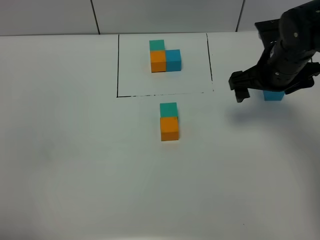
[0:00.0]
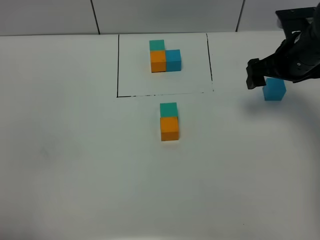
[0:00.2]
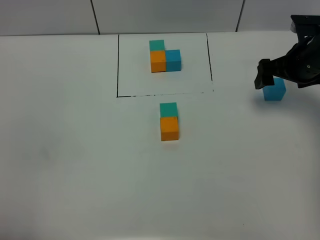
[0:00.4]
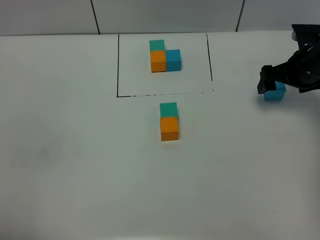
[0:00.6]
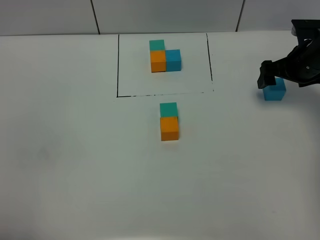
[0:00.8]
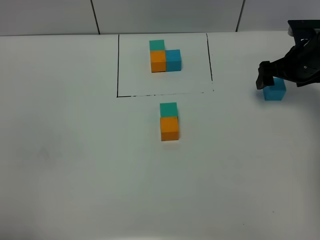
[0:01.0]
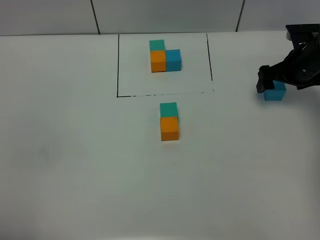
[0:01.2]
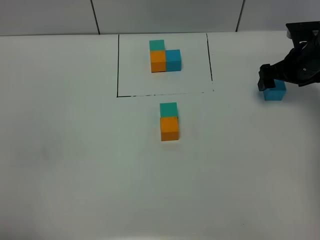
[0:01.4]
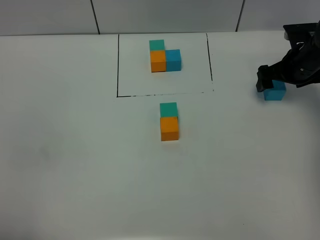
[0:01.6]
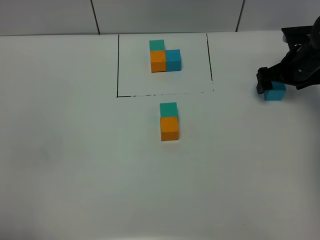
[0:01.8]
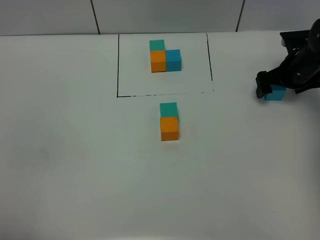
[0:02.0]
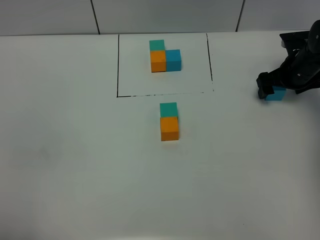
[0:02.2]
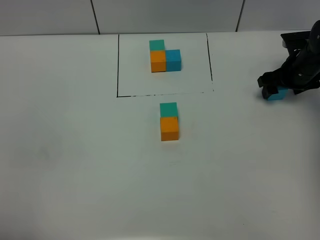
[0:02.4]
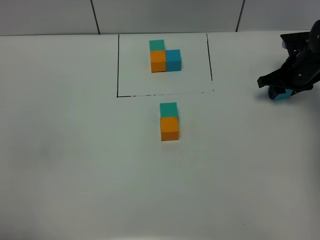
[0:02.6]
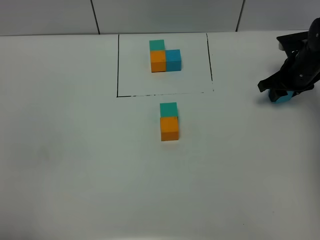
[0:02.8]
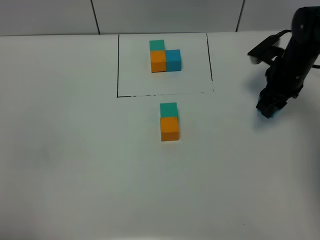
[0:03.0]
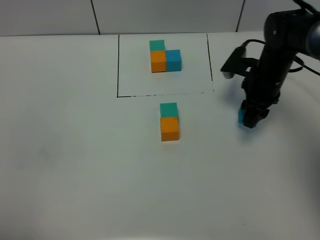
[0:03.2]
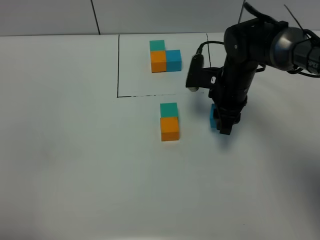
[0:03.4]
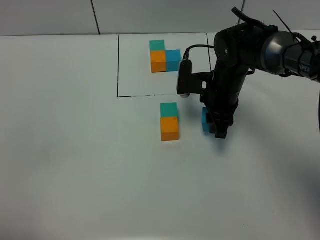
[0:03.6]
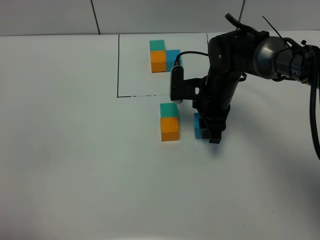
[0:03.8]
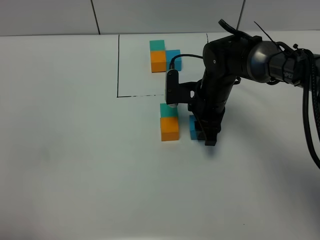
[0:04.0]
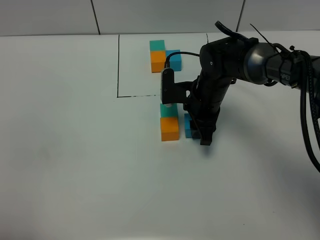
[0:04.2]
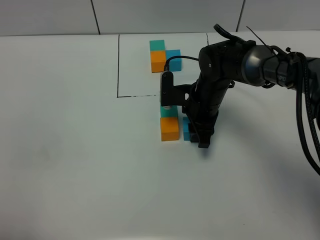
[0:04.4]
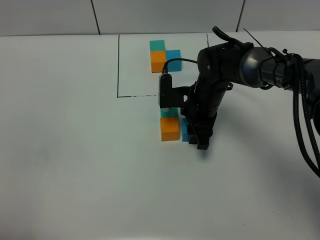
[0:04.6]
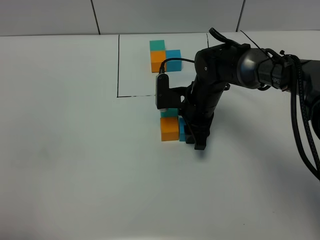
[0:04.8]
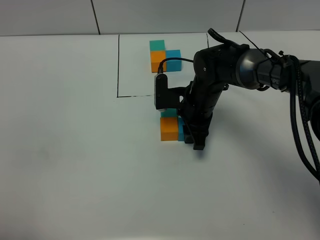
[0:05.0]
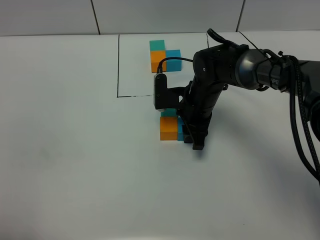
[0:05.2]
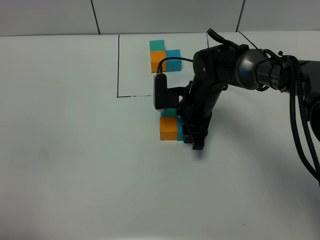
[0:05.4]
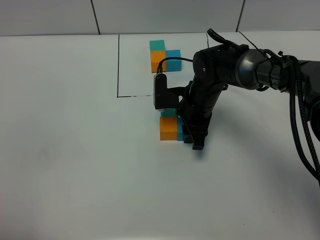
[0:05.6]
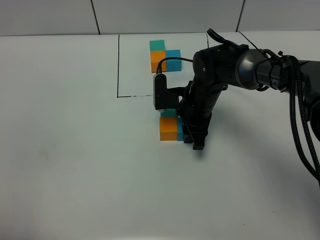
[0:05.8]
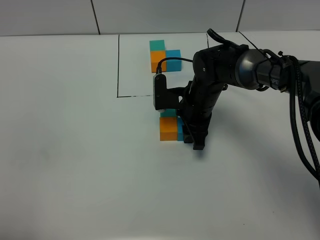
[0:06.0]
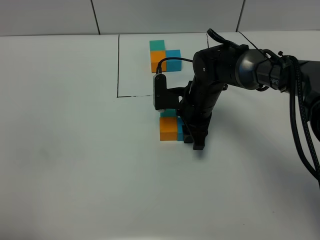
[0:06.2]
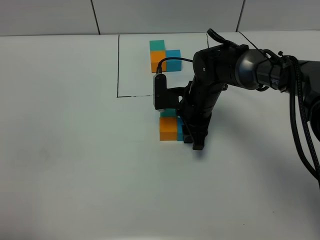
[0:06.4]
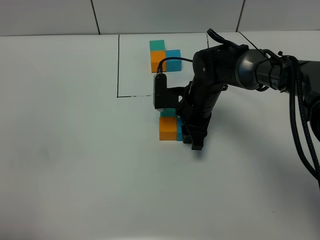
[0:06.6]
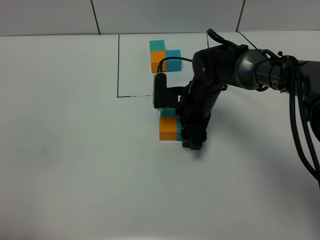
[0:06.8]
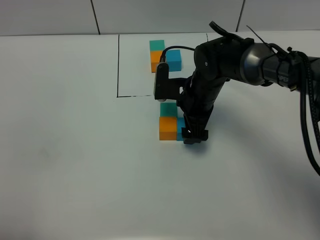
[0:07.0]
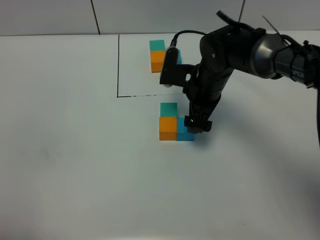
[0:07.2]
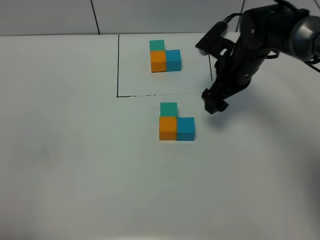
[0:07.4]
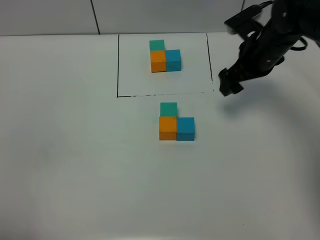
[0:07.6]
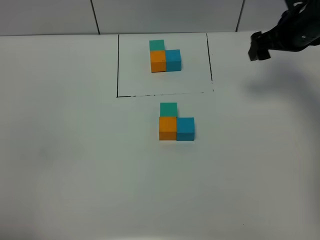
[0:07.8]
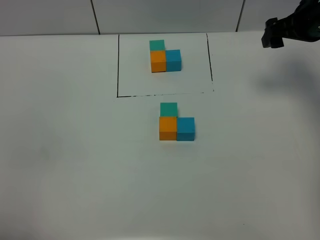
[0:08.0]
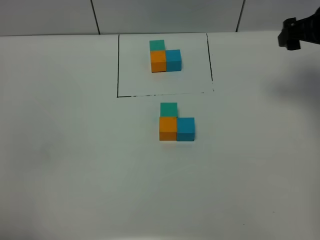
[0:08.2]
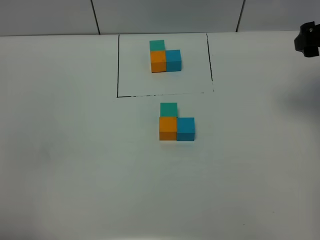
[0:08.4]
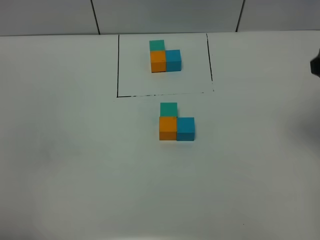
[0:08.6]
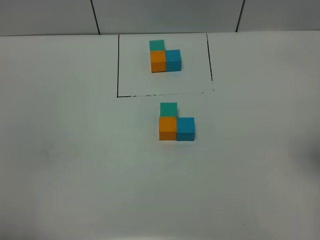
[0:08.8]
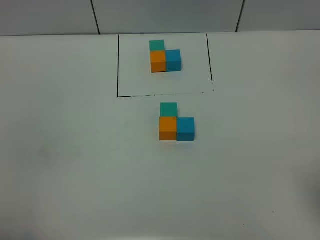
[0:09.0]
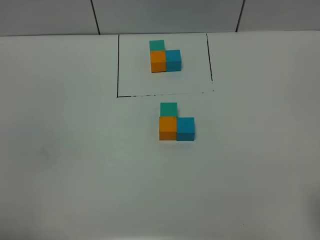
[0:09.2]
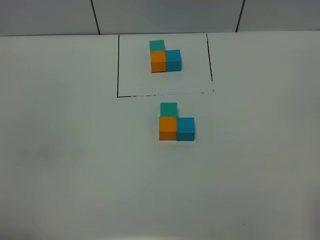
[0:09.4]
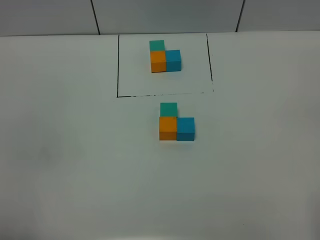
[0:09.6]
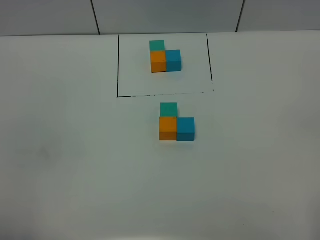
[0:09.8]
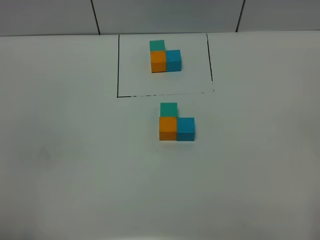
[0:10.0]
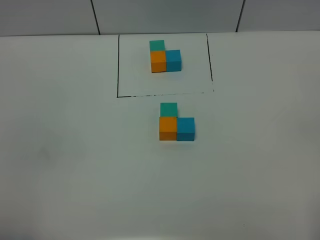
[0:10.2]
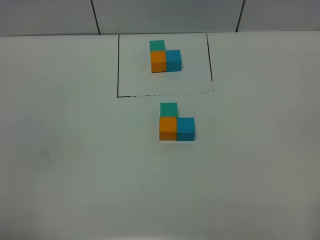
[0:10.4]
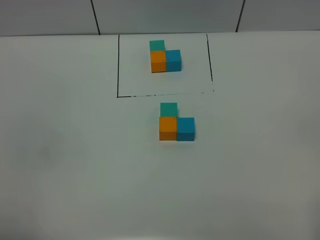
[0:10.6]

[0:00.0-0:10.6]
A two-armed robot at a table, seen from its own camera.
Task of the whole recording: According to the building block template in front, assemble the scattered blocks together.
Step, 0:00.0 to 0:06.8: Put the blue build block on the right of the orange build block.
0:00.0 to 0:01.6: The right gripper travels to the right, downward and forward by about 15 cm.
0:01.6 to 0:03.0: The right gripper goes some 5 cm to the left, and closes.
0:03.0 to 0:04.6: The right gripper shifts approximately 15 cm to the left.
0:04.6 to 0:06.0: The two grippers keep their place.
0:06.0 to 0:07.6: The right gripper shifts approximately 15 cm to the right and upward, and opens up.
0:07.6 to 0:09.0: The right gripper is displaced backward by approximately 30 cm.

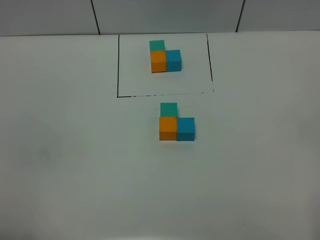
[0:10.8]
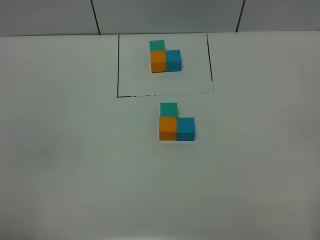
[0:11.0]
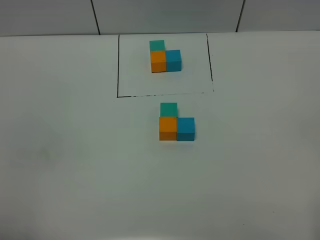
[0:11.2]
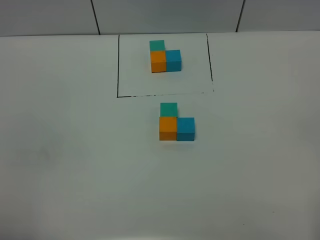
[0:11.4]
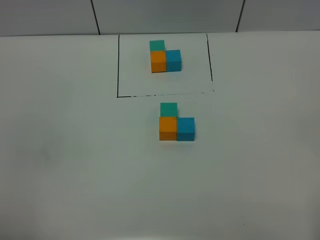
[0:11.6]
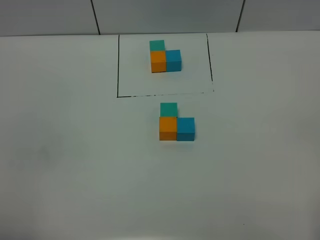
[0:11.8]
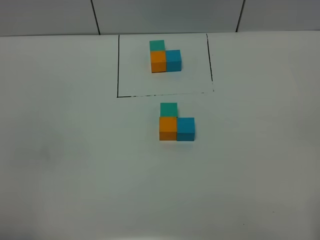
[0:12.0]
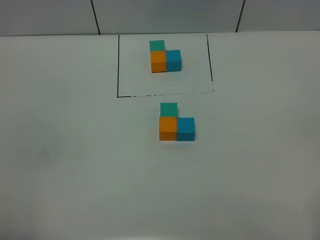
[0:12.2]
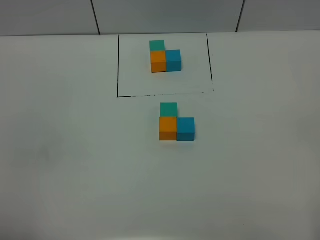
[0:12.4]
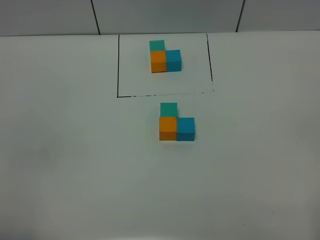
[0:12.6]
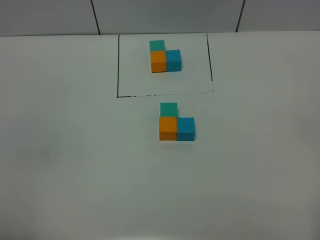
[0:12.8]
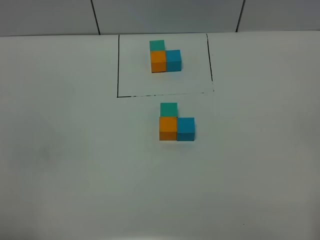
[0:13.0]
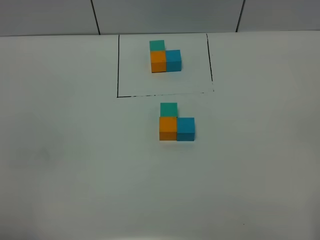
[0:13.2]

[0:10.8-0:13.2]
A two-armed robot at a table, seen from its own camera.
Task of the whole recording: According to the building block template in front, assemble the scattered blocks together.
0:10.8 to 0:13.2: Neither gripper changes place.

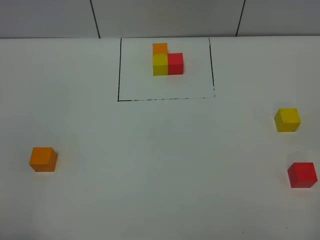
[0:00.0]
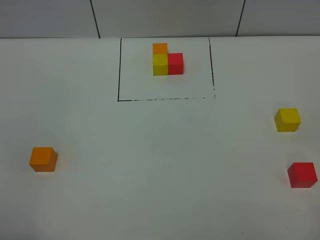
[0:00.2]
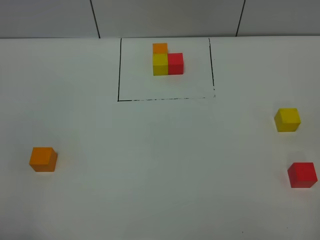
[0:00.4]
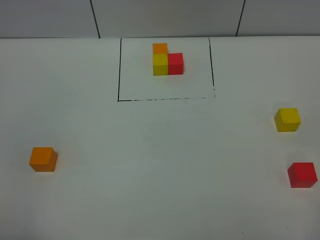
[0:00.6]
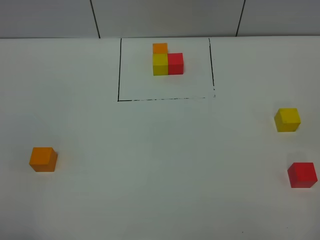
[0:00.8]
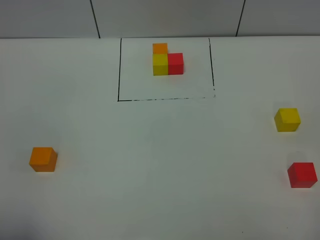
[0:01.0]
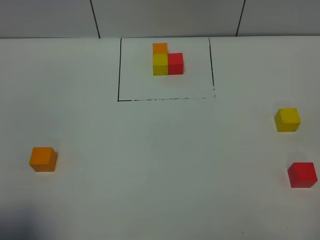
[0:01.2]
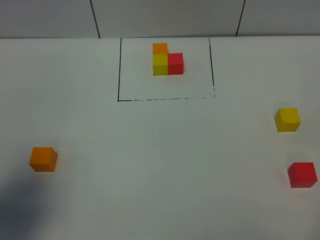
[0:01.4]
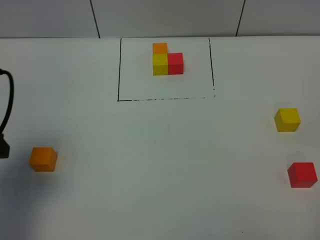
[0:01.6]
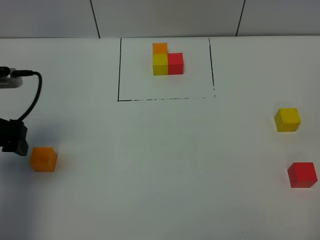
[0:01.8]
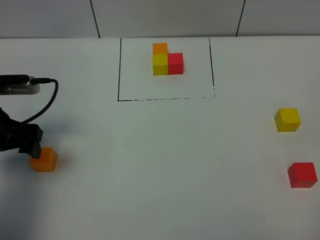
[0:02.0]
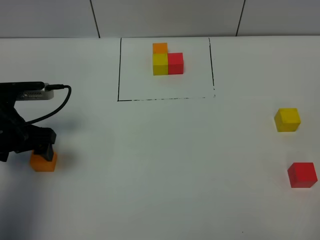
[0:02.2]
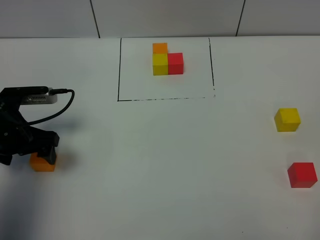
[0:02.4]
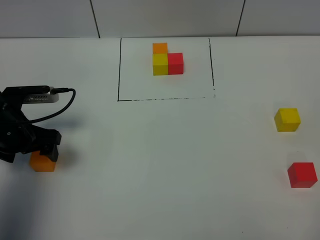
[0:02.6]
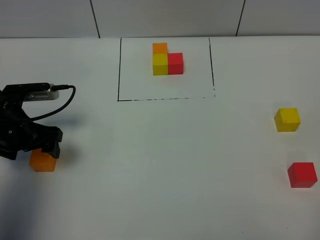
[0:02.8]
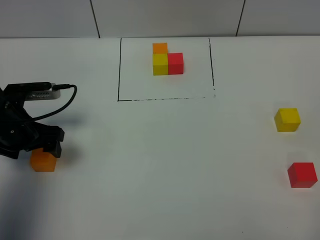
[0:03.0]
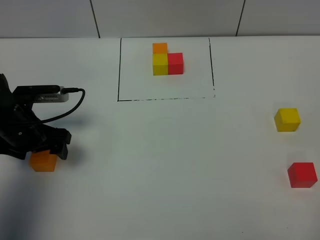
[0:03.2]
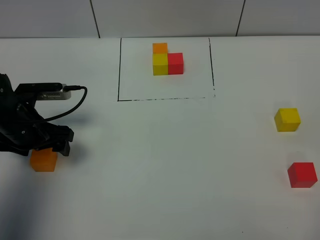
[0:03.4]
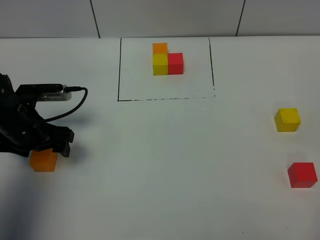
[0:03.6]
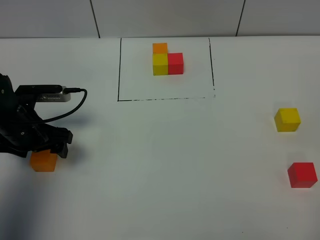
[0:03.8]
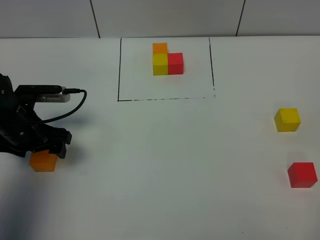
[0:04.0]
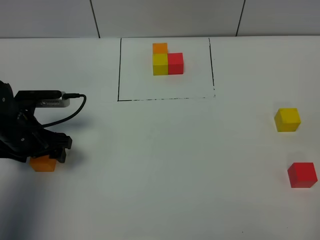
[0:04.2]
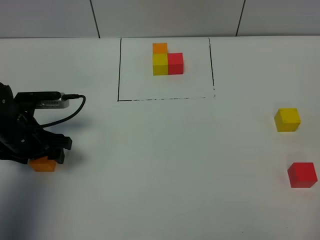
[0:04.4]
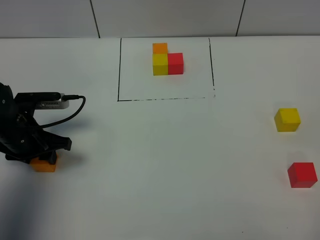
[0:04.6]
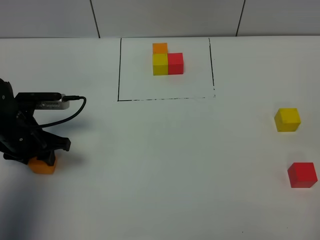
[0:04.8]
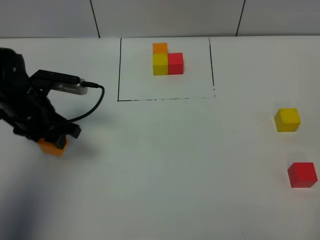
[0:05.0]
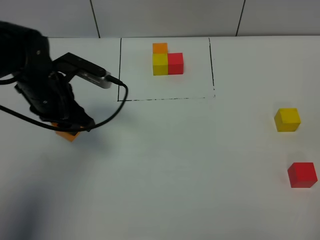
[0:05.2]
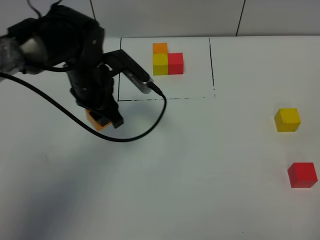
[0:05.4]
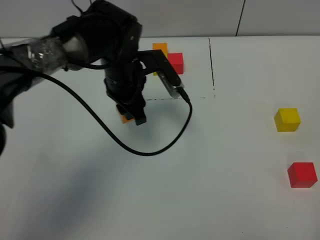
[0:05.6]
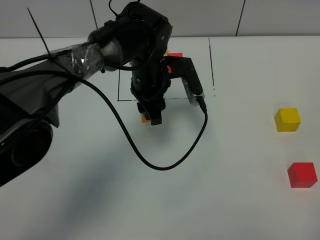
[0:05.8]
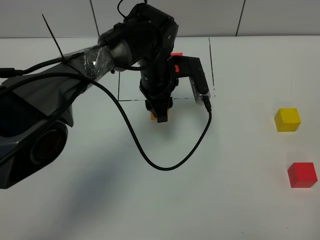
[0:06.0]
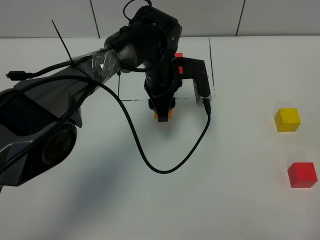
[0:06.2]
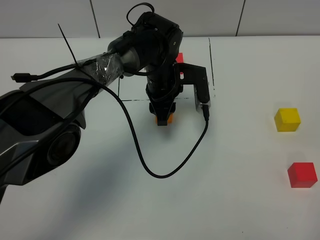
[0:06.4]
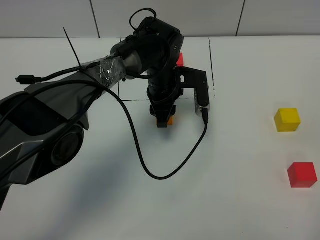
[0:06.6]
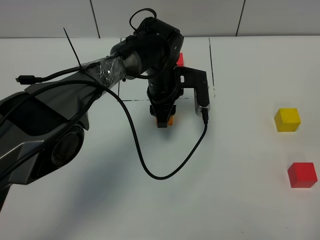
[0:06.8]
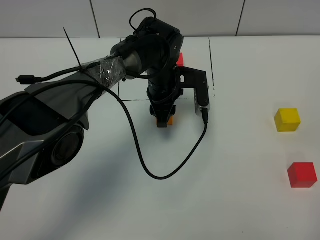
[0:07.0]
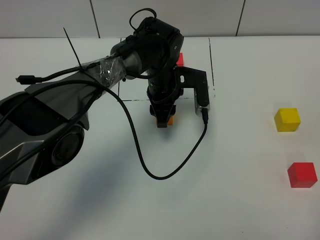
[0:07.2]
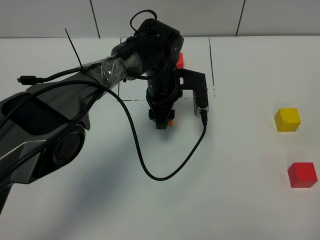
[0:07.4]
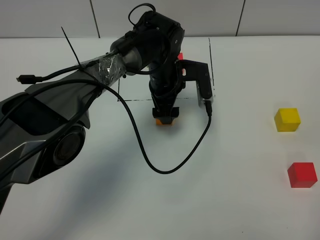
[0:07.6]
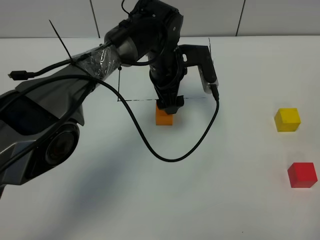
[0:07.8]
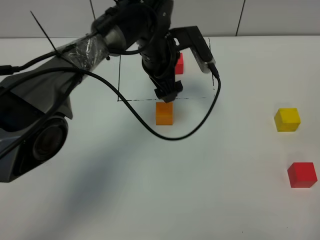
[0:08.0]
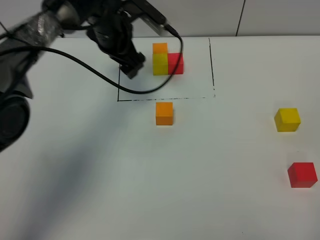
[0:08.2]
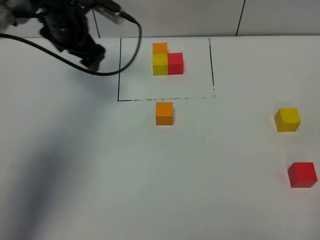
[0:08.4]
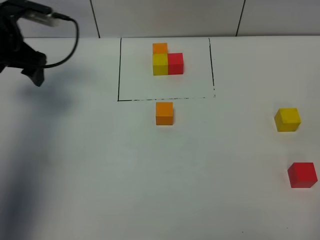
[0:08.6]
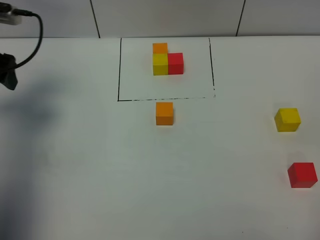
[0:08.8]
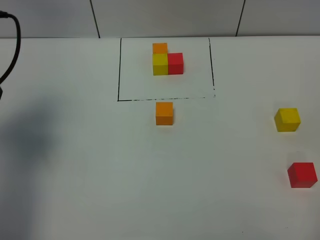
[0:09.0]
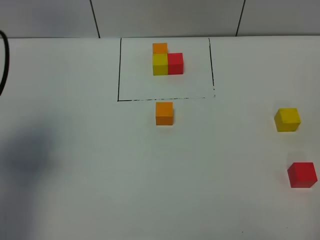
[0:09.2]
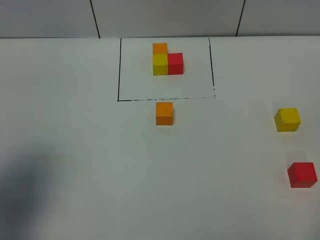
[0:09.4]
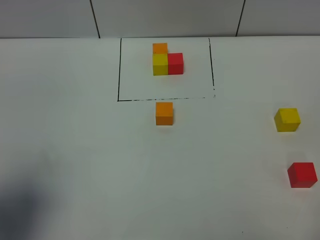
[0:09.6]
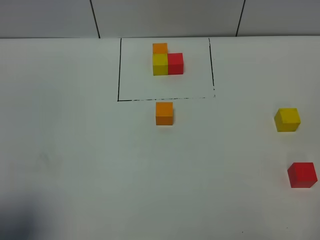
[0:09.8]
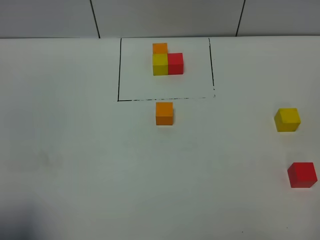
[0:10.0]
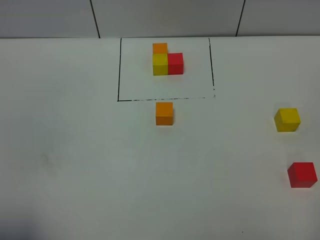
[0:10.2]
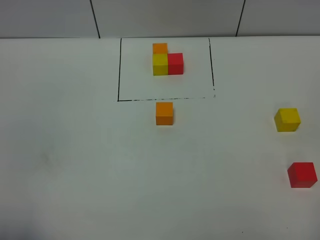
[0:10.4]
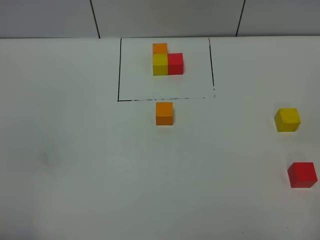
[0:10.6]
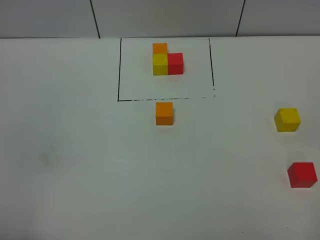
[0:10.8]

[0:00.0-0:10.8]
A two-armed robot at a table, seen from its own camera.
Task of the whole recording: According to the building block template in front, assemble the scattered blocks together.
Step, 0:00.0 to 0:07.4: Put the orange build block in the center of the table.
0:00.0 to 0:01.6: The left gripper travels forward by some 20 cm.
0:01.6 to 0:03.0: The left gripper shifts approximately 15 cm downward and forward.
0:03.0 to 0:04.6: The left gripper closes up.
0:04.6 to 0:06.2: The left gripper shifts roughly 30 cm to the right and forward.
0:06.2 to 0:07.8: The left gripper opens.
0:07.8 to 0:09.2: The left gripper is displaced to the left, backward and upward by roughly 40 cm.
0:09.2 to 0:10.8: The left gripper moves backward, roughly 25 cm.
